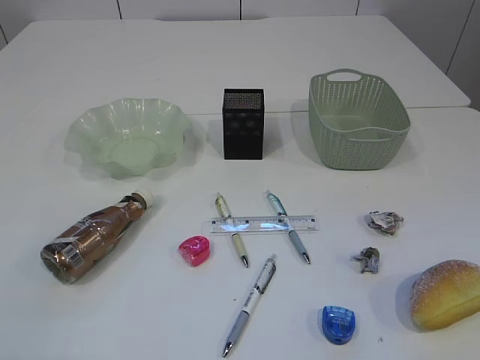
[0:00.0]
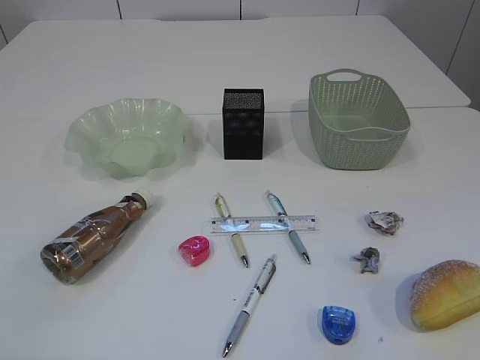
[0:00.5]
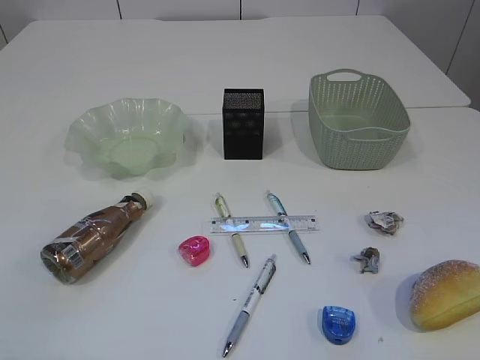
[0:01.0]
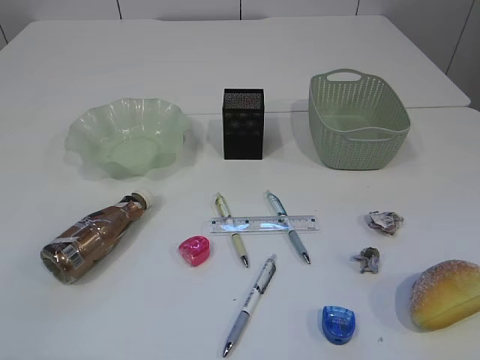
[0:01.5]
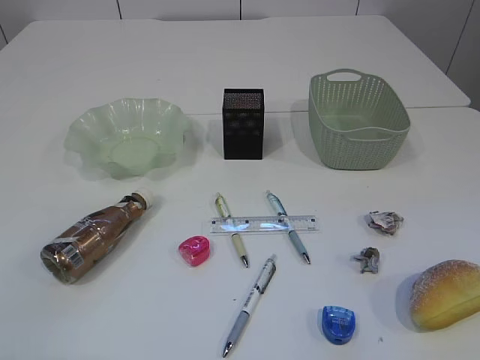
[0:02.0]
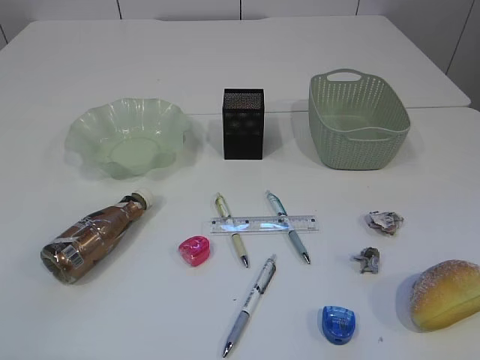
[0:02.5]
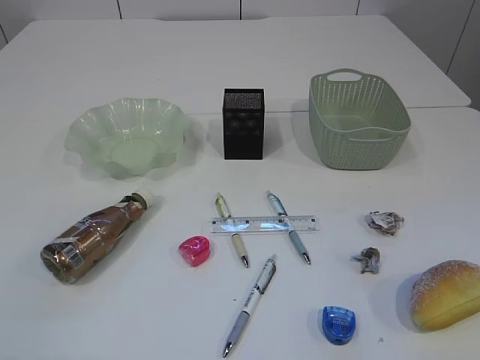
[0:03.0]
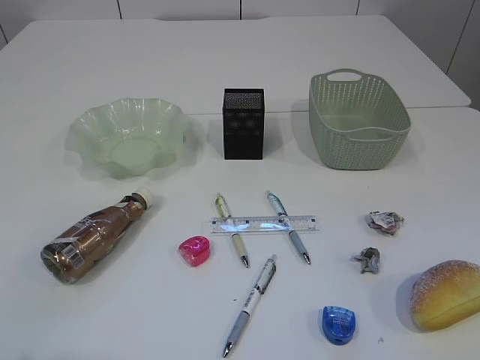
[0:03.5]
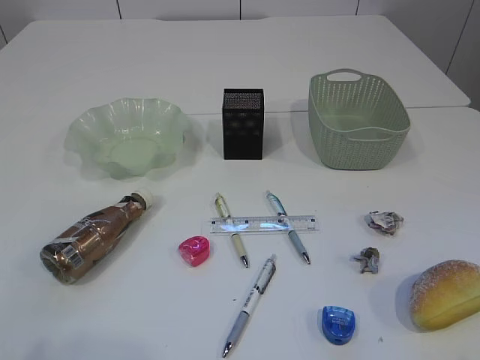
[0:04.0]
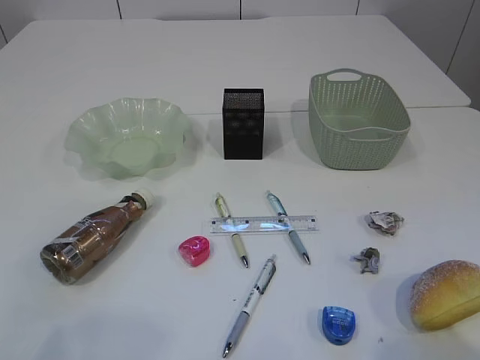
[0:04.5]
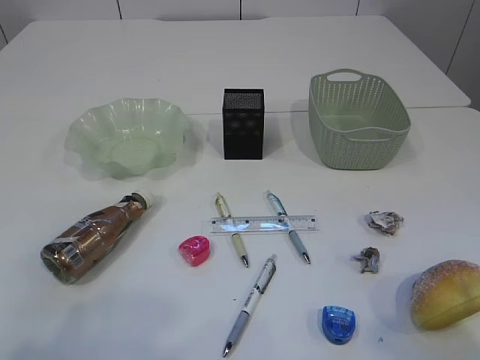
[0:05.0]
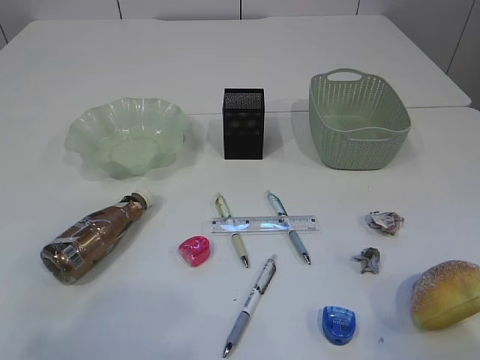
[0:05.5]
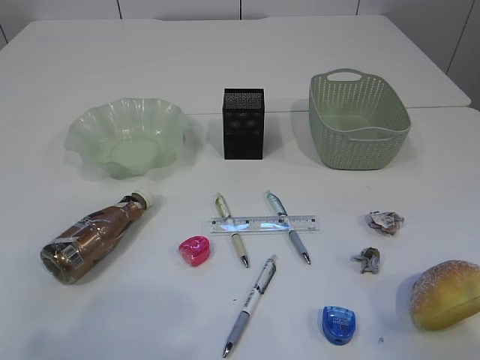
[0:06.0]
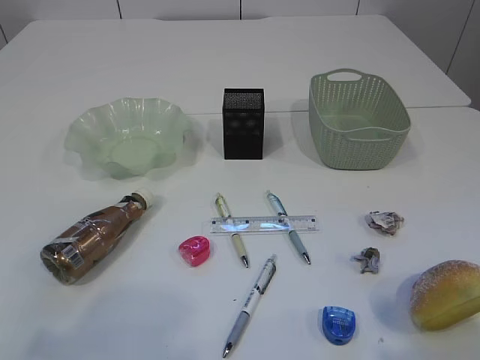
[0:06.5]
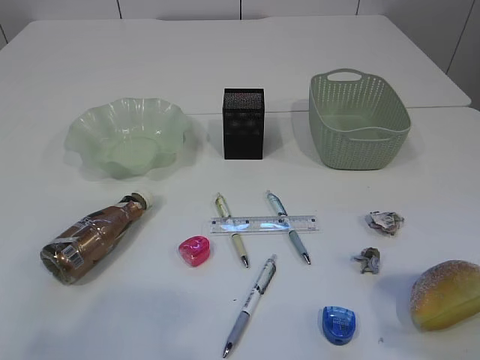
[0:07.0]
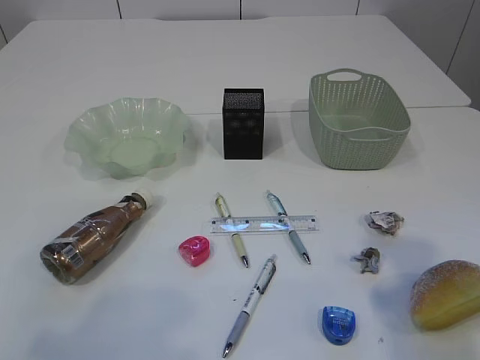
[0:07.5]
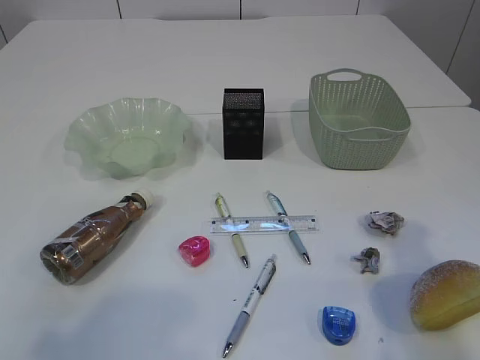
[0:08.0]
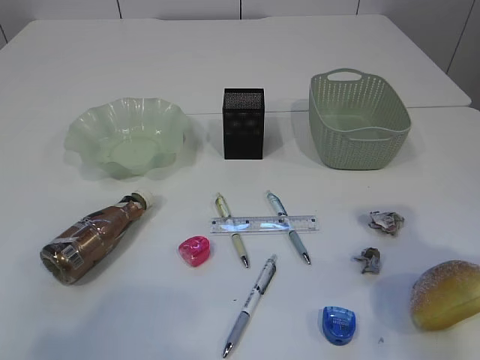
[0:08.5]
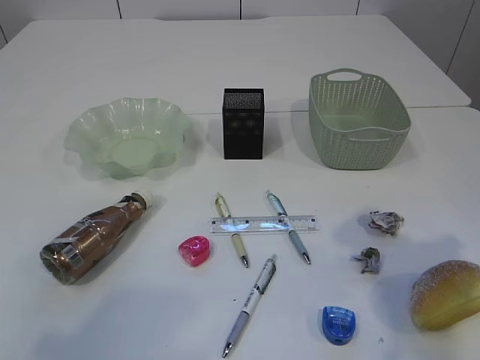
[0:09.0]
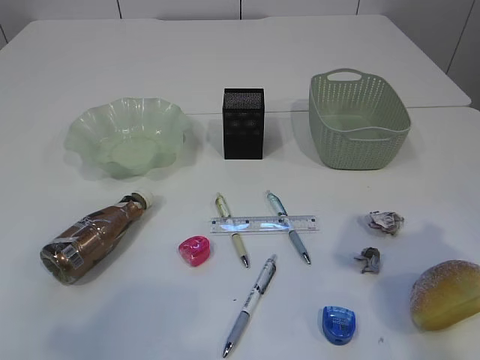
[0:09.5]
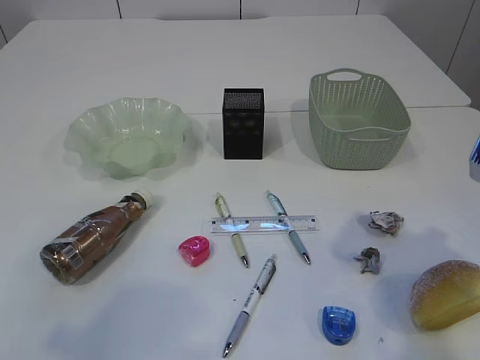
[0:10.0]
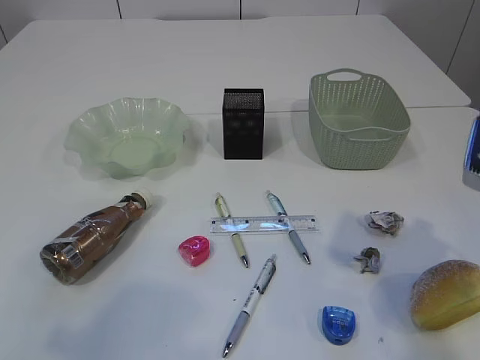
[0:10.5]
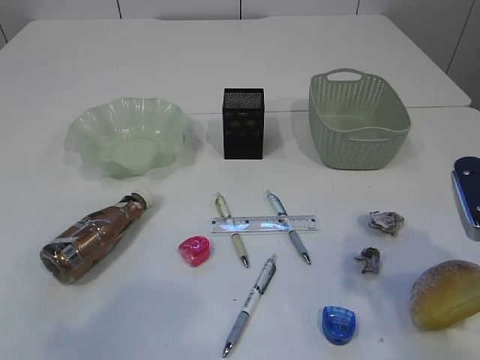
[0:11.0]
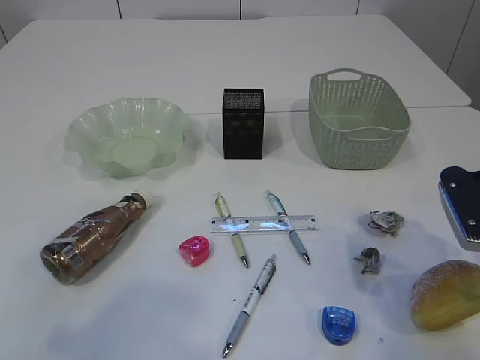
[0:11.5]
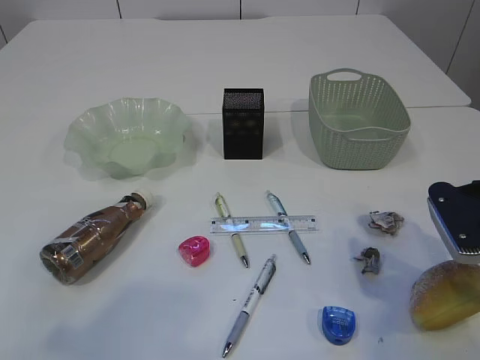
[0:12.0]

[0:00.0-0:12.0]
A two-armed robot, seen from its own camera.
0:04.0 to 0:06.0: The right gripper travels forward by roughly 5 cm.
0:06.0 to 0:08.0: The right gripper travels forward by about 10 cm.
0:10.0 to 0:12.0: The right gripper travels downward by about 10 cm.

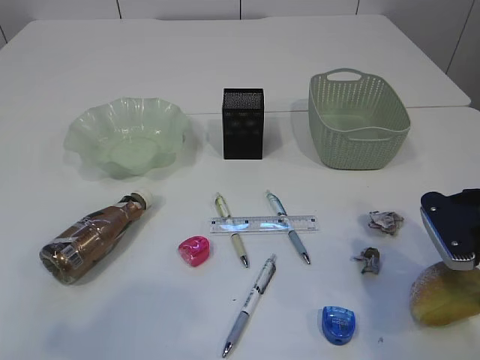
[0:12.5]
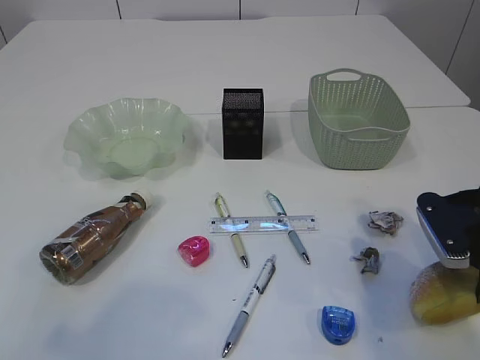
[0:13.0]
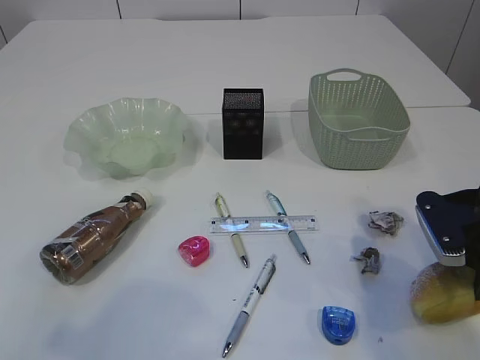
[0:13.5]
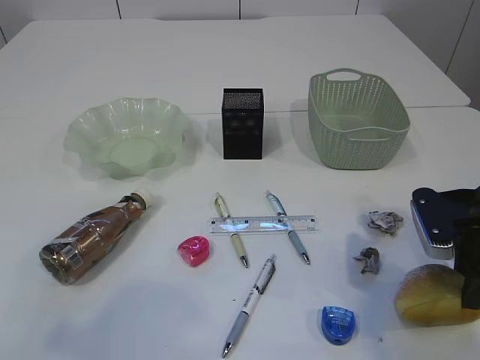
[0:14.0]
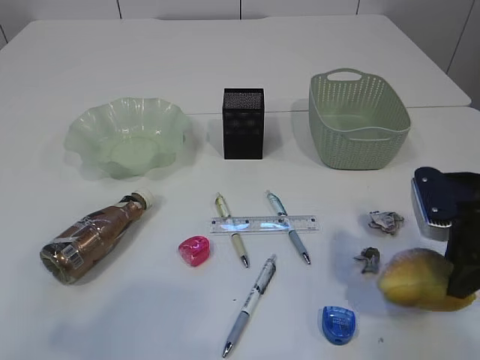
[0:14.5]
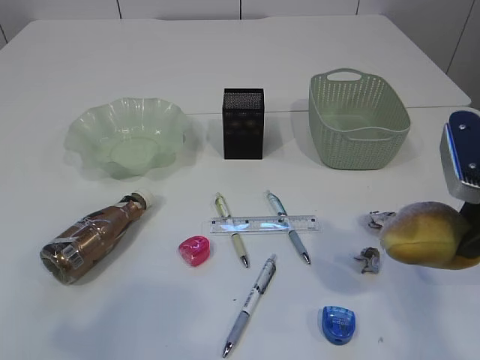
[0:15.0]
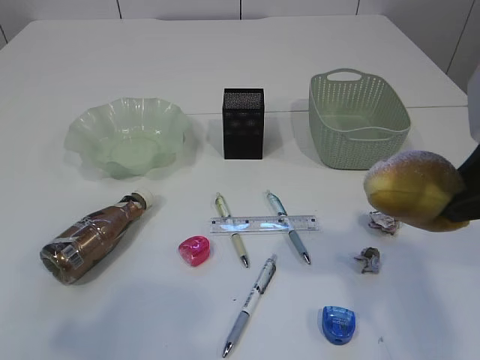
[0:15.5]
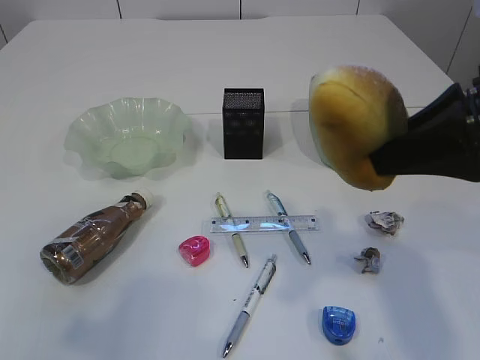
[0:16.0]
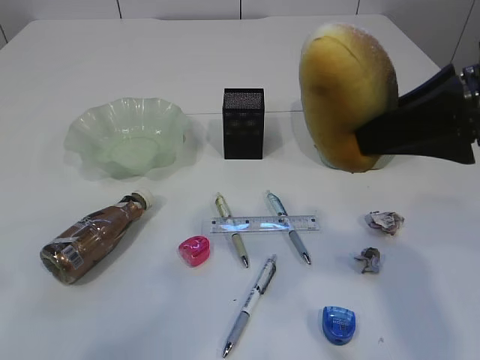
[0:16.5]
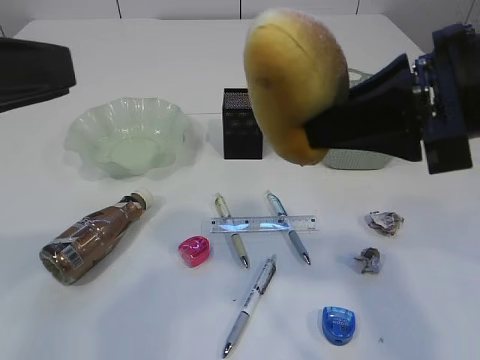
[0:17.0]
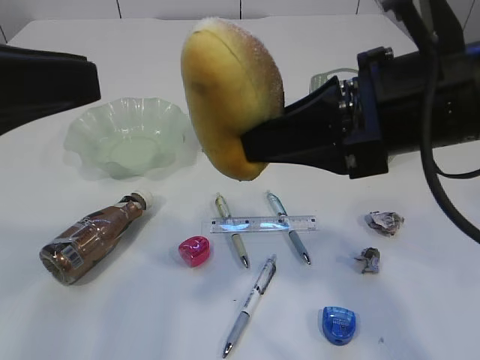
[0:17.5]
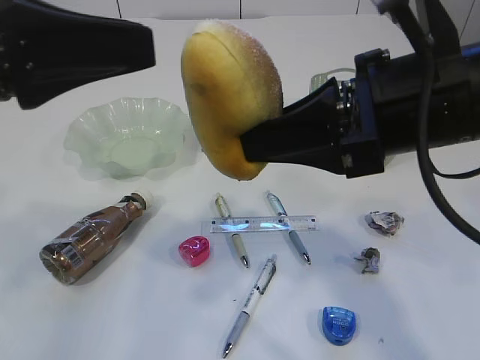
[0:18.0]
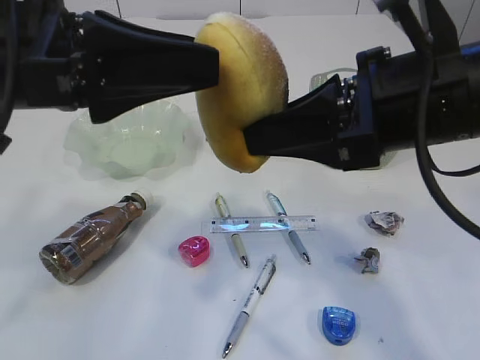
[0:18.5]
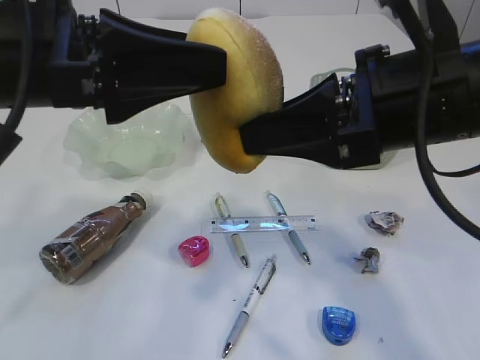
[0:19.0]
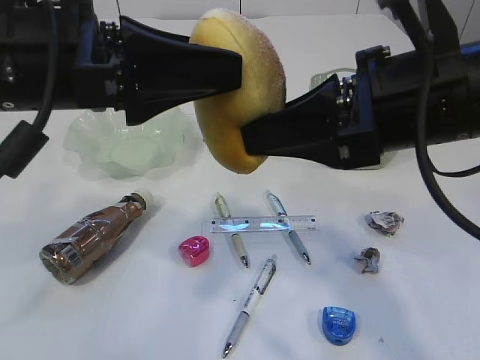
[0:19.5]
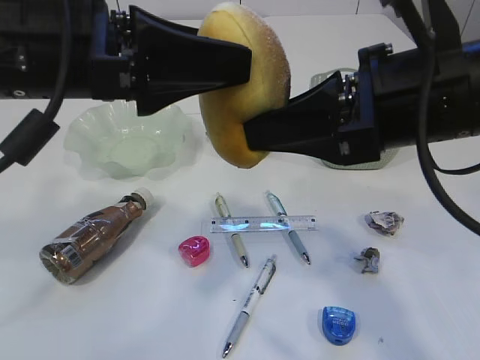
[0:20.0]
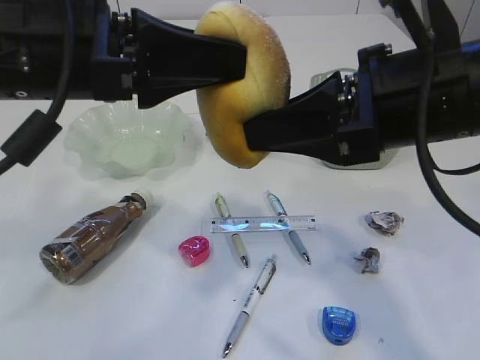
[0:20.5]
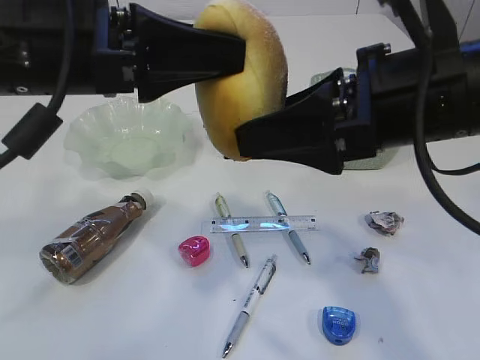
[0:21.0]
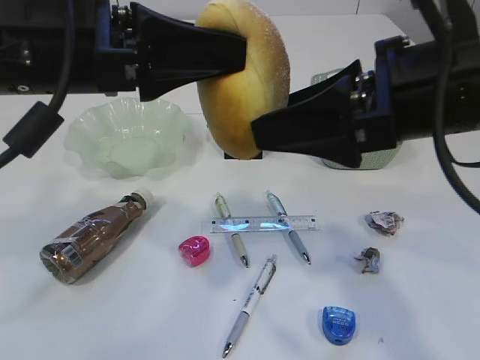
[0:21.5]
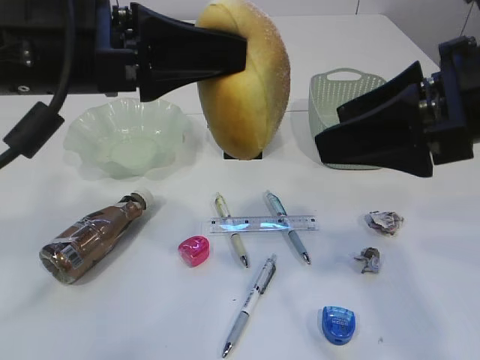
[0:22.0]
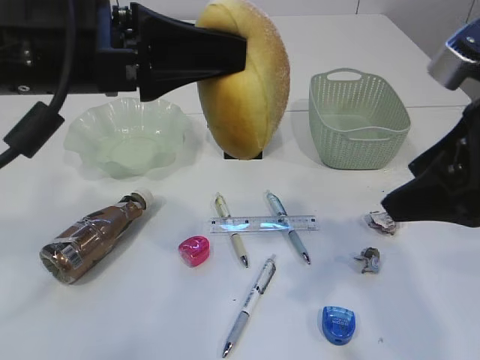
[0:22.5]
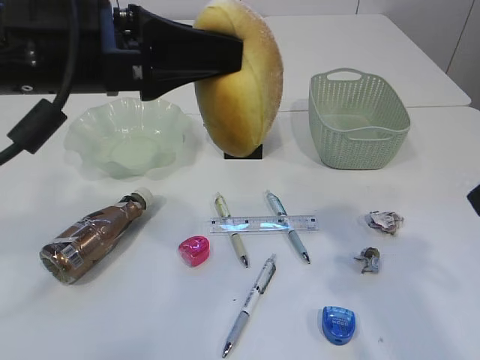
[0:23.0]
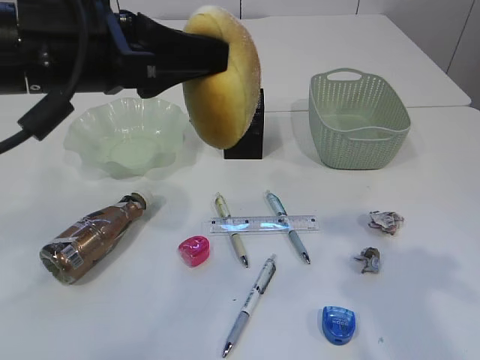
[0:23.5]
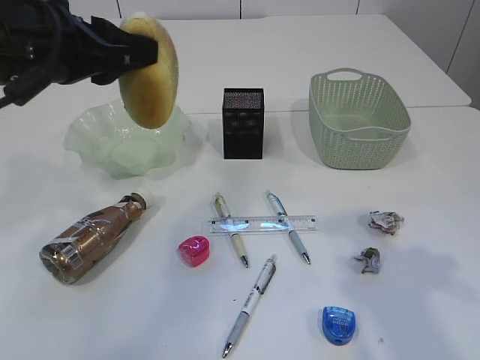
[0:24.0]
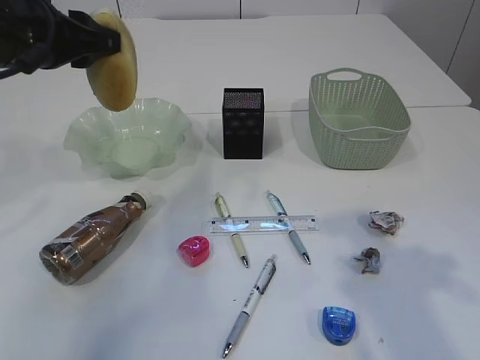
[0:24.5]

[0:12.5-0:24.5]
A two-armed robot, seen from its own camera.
Step, 0:15.5 to 0:21.5: Hand over the bread.
0:12.5 to 0:14.5: The right gripper closes its fingers.
0:14.5 to 0:16.5: The right gripper heads upward, covering roughly 15 cm, while the left gripper heads forward, covering some 5 cm.
0:16.5 to 0:18.5: The right gripper is displaced to the left by about 5 cm, while the left gripper is displaced forward and to the right by some 15 cm.
0:18.5 to 0:20.5: The left gripper closes.
0:20.5 to 0:22.5: The right gripper is displaced to the right by some 10 cm, and opens.
0:22.5 to 0:24.5: The left gripper is displaced forward and to the left by roughly 15 cm, while the right gripper shifts by roughly 5 cm.

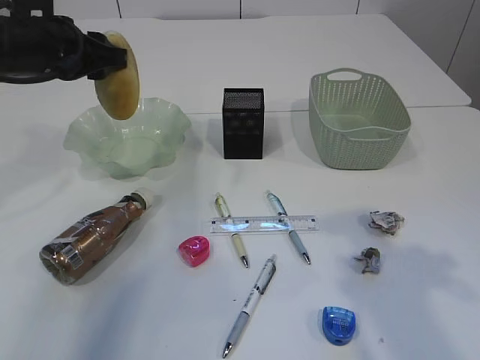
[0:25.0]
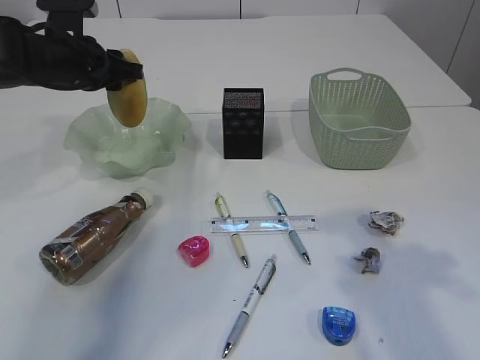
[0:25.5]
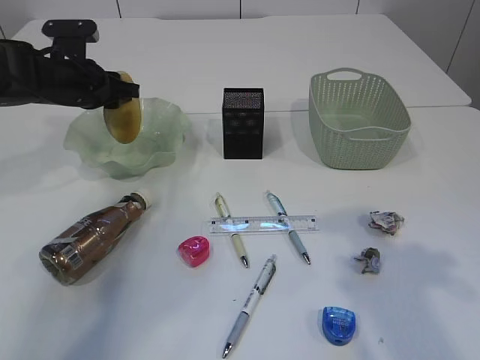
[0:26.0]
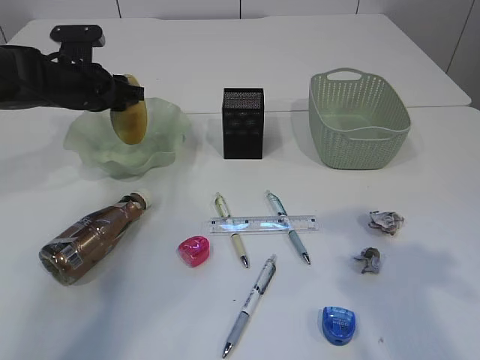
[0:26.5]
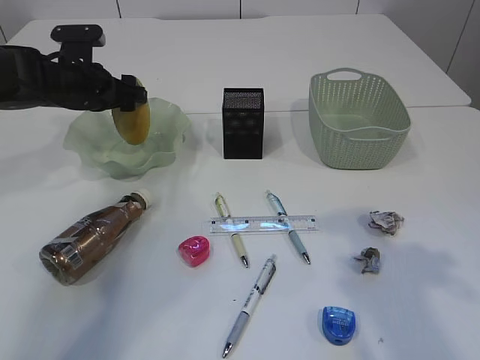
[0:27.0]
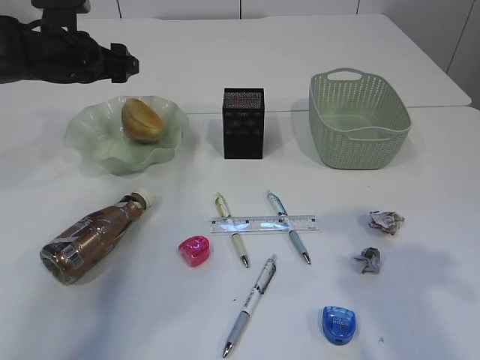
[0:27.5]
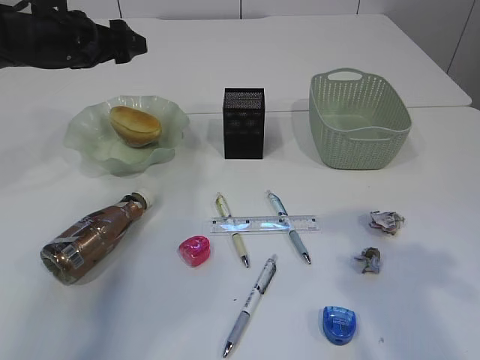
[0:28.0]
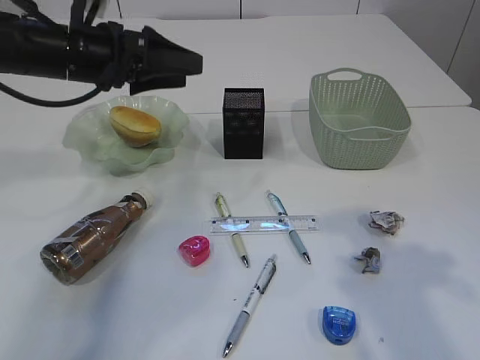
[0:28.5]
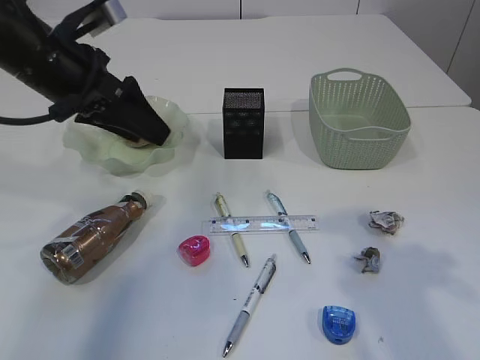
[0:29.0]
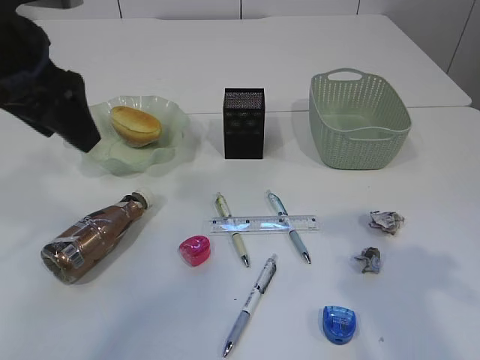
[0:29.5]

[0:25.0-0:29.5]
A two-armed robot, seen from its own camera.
Step, 0:25.0 to 0:28.0: place the bread in the plate.
0:25.0 to 0:27.0: The left gripper shifts about 10 cm downward and forward, and opens its fingers.
0:27.0 to 0:29.5: The left gripper is displaced backward and upward by some 25 cm.
